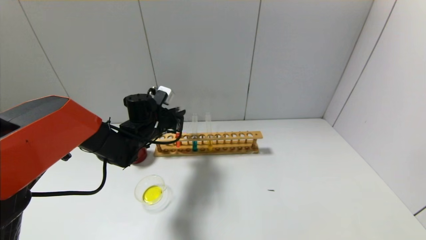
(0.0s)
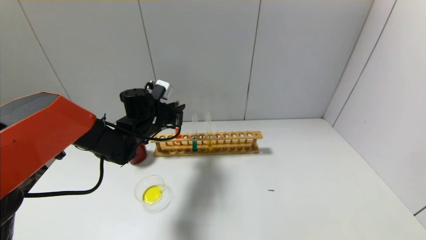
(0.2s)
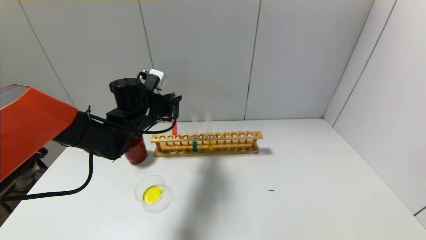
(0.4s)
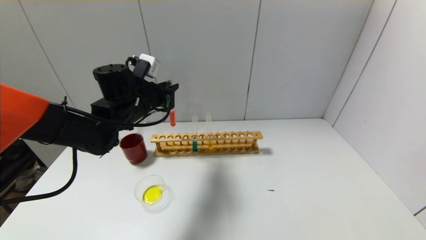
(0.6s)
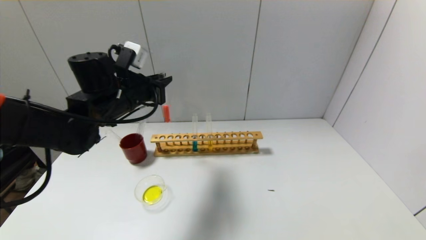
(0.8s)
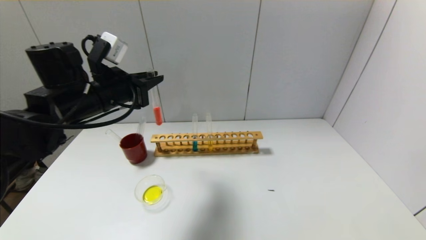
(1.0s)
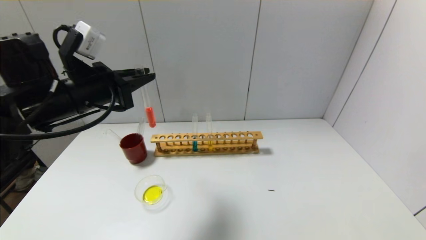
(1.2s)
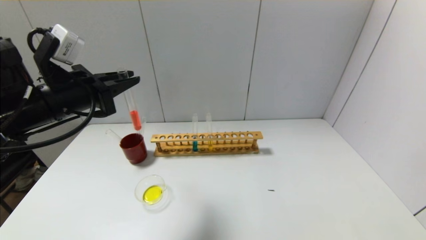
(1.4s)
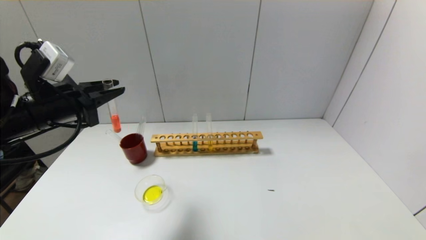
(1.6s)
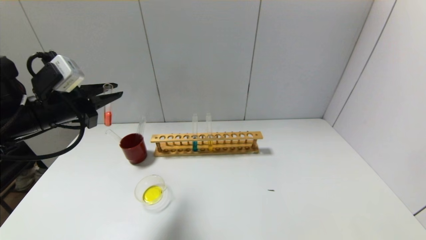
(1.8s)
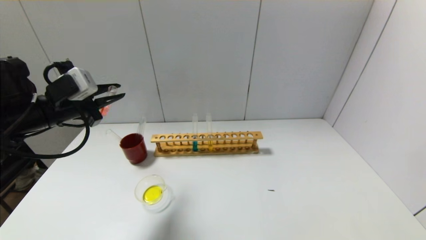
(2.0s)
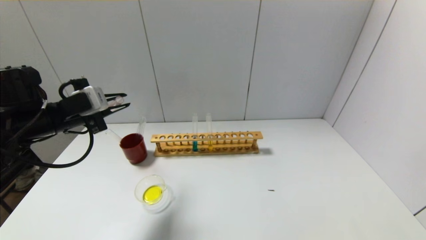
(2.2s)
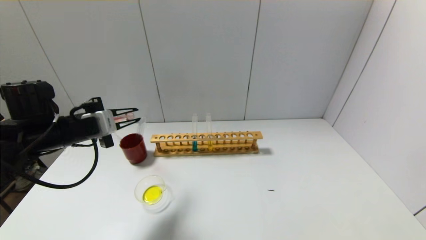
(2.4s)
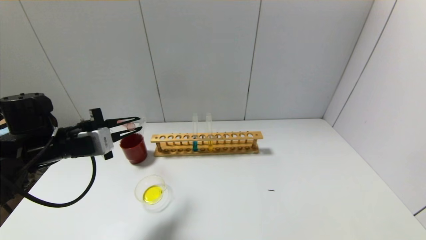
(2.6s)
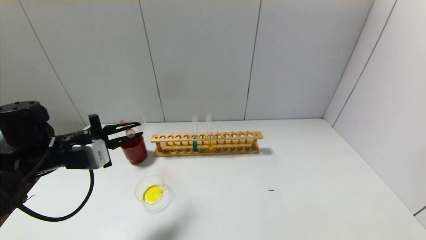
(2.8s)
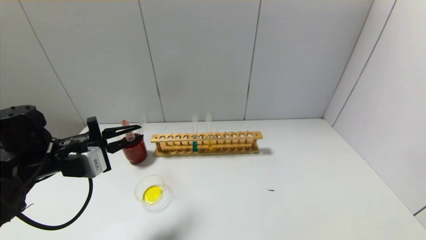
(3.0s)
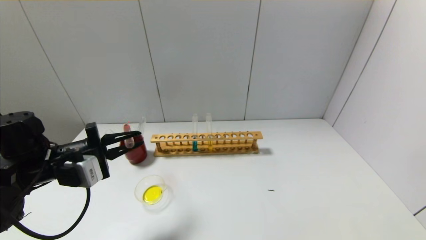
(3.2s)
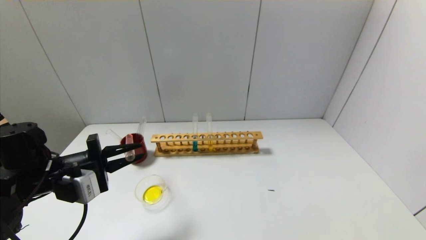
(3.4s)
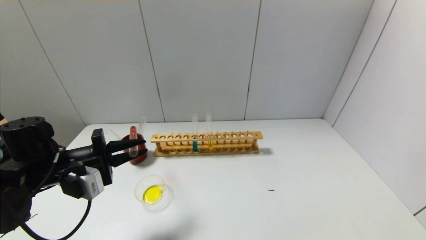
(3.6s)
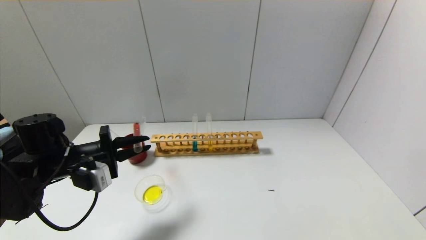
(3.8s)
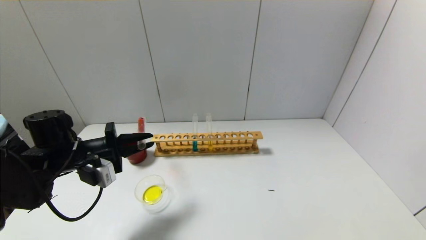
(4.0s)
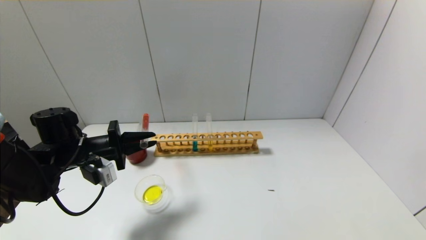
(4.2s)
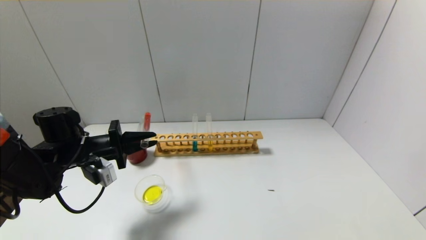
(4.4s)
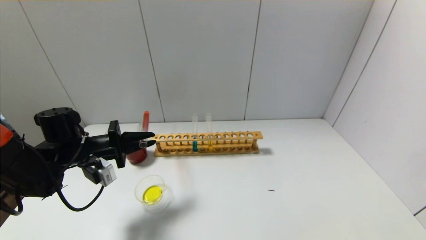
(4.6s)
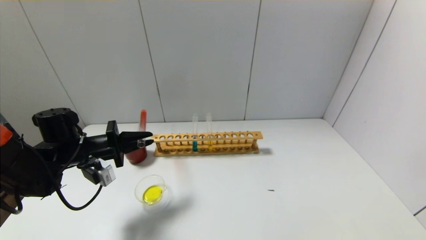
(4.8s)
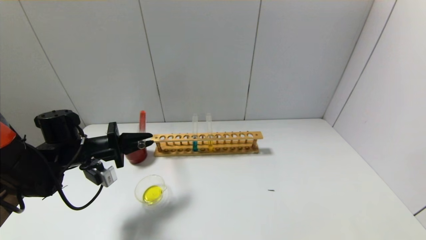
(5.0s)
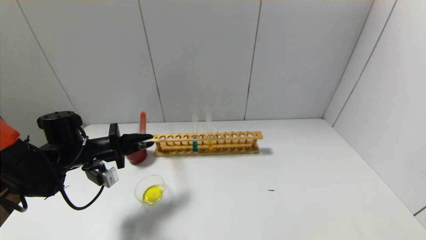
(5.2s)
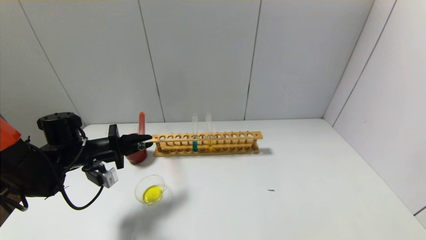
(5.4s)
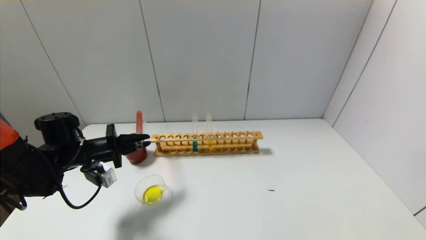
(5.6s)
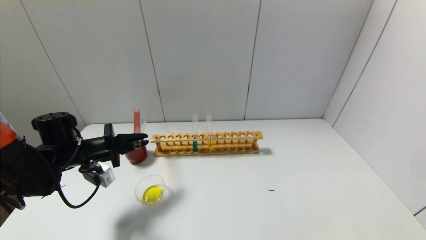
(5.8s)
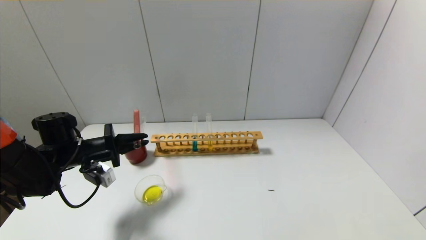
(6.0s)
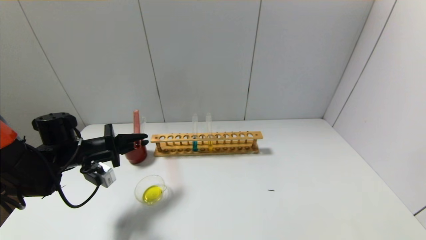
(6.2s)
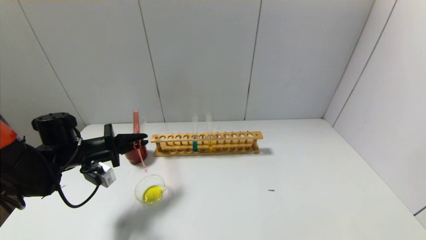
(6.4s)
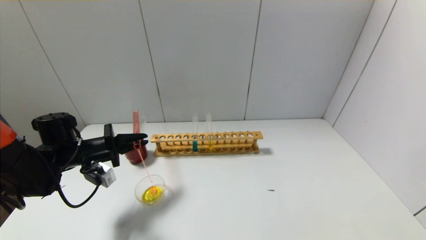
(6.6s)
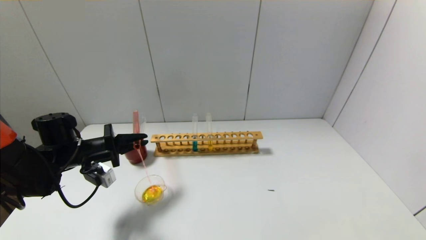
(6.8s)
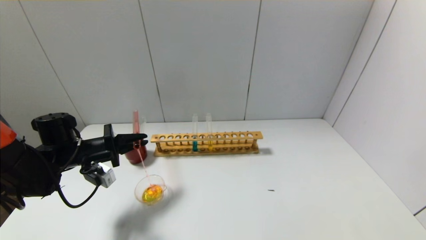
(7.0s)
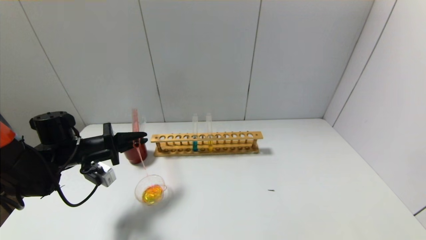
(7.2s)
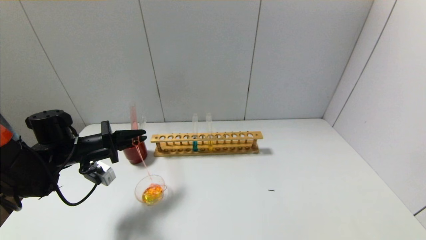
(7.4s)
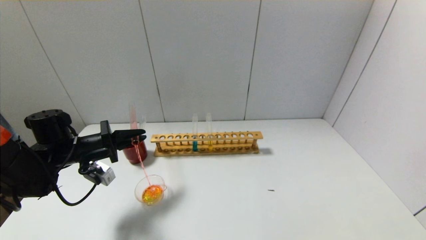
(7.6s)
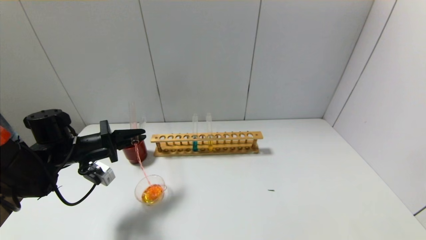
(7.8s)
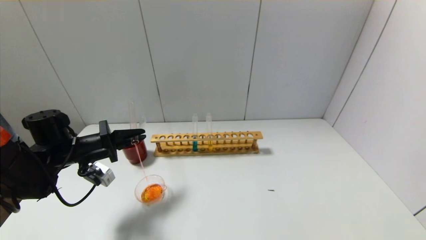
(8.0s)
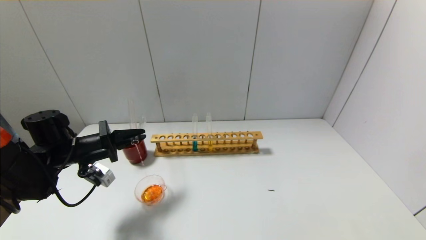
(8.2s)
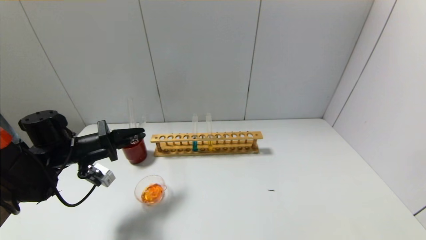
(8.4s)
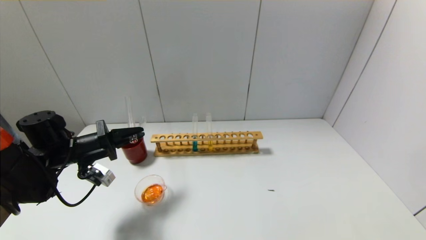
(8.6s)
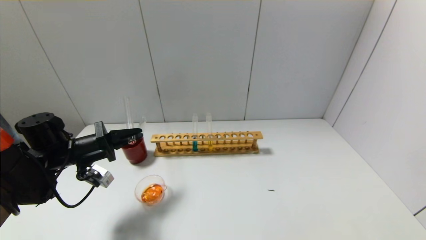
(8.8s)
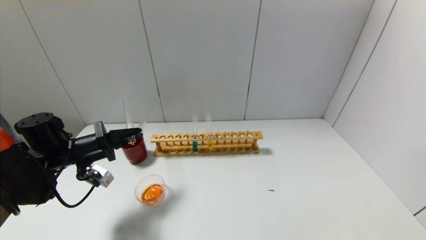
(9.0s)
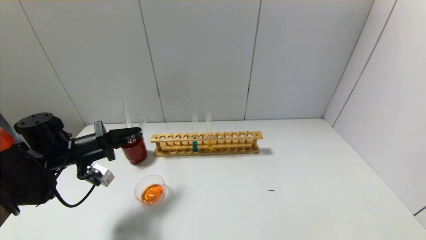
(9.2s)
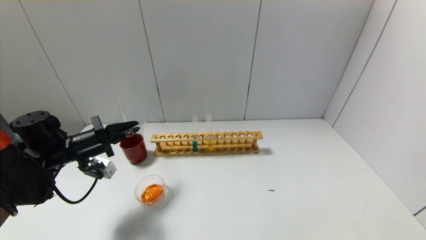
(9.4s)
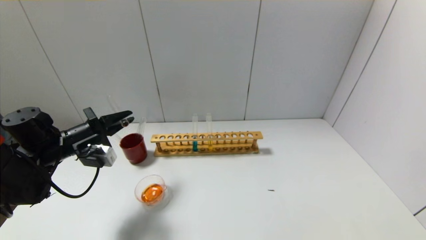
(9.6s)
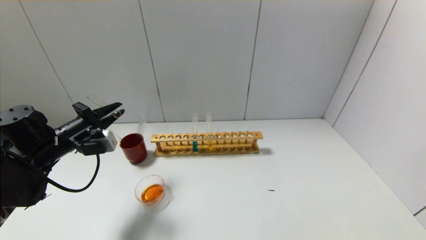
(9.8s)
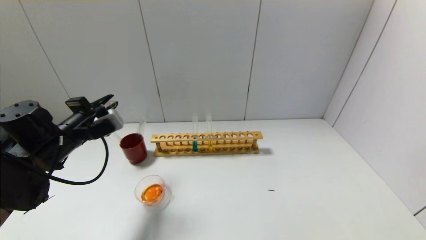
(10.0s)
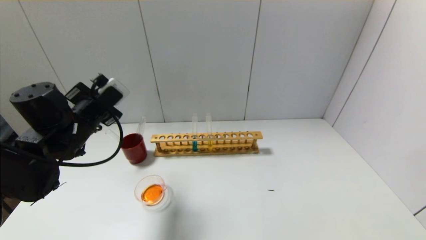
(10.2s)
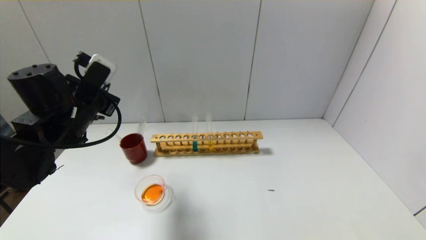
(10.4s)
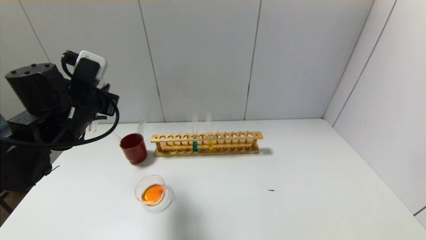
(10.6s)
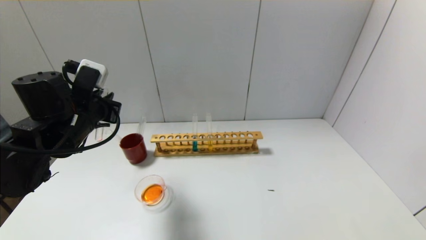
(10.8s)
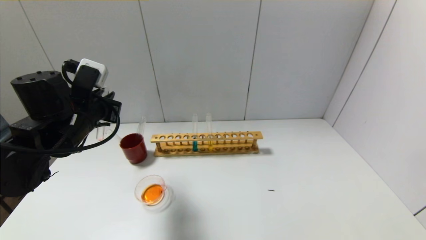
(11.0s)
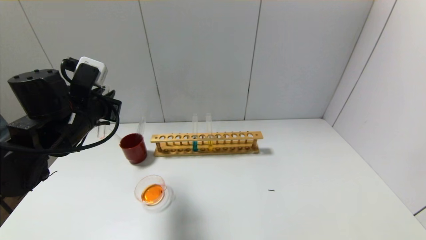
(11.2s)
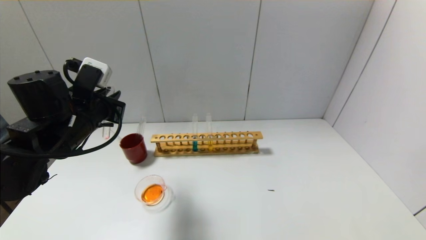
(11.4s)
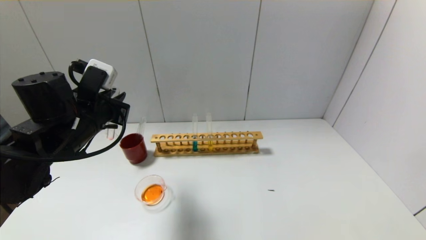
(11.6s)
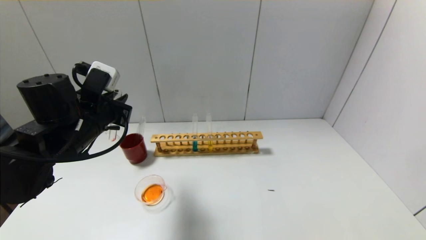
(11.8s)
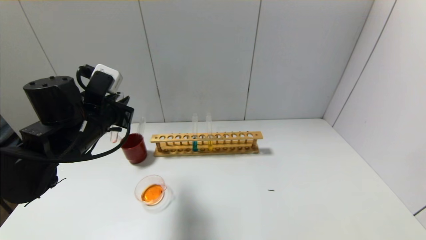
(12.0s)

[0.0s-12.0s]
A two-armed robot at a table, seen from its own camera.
Step, 0.0s to 9.4s: Pour the red reagent into the graduated cylinder with the left gripper.
0.0s to 1.6s: The left gripper shifts some 25 cm backward, upward and to the left.
1.6s to 3.0s: The left gripper shifts about 10 cm downward.
3.0s to 4.4s: The left gripper heads forward, covering roughly 5 cm.
4.4s to 7.6s: The grippers stay close to where they were, moving slightly.
7.6s to 9.0s: The grippers make only small movements.
9.0s to 10.4s: The left gripper shifts some 15 cm upward and to the right.
10.4s to 12.0s: The grippers move only a little.

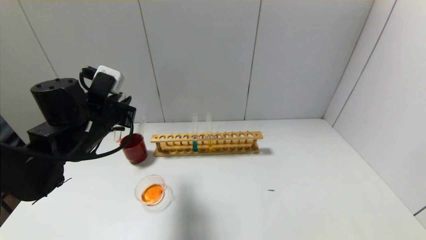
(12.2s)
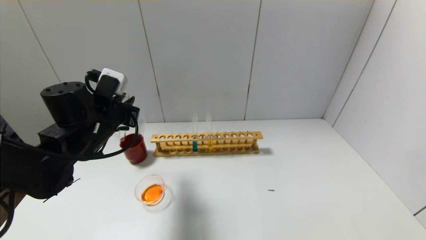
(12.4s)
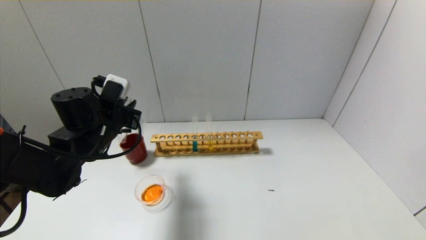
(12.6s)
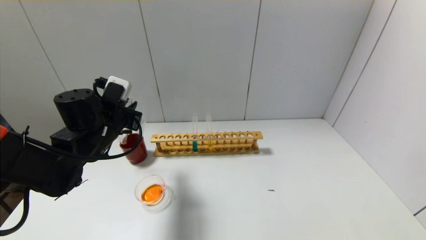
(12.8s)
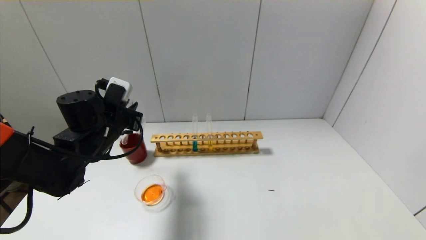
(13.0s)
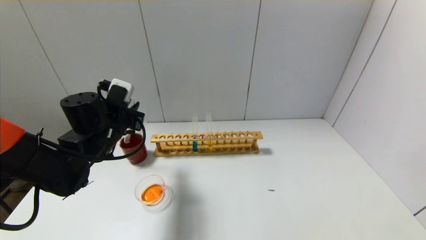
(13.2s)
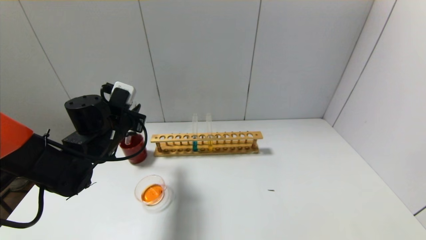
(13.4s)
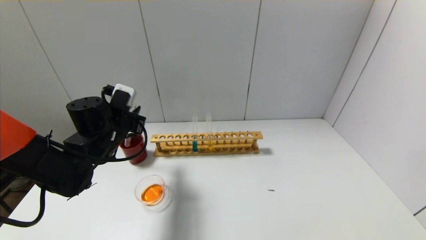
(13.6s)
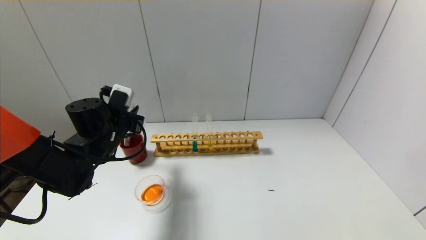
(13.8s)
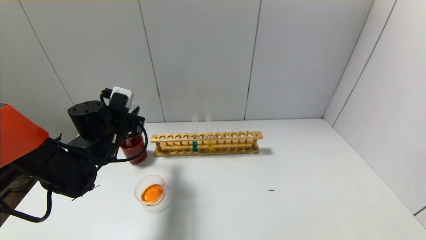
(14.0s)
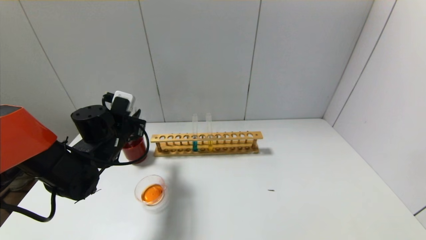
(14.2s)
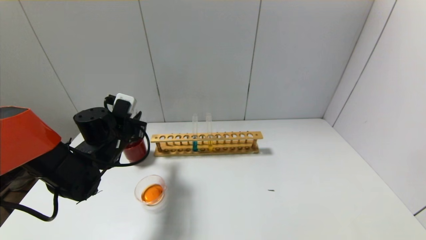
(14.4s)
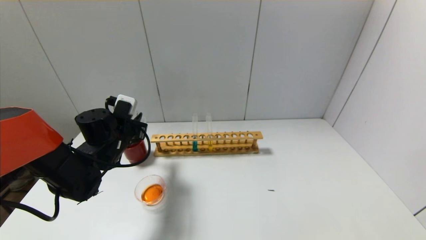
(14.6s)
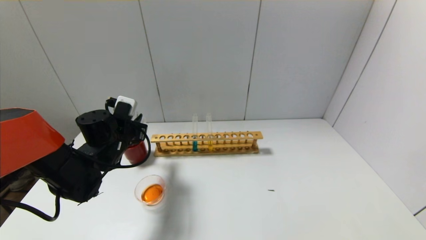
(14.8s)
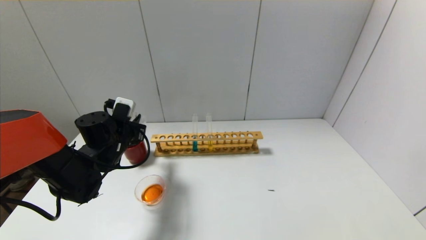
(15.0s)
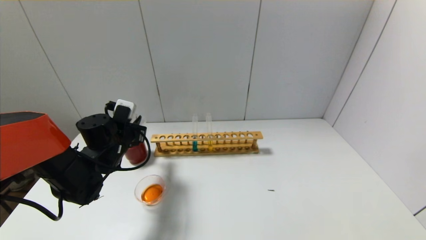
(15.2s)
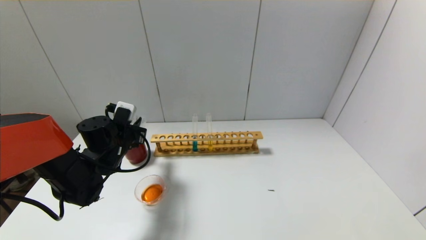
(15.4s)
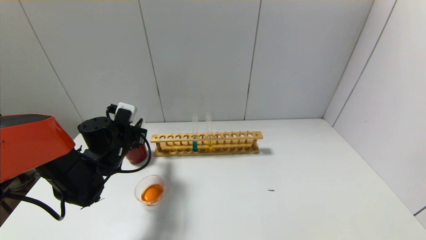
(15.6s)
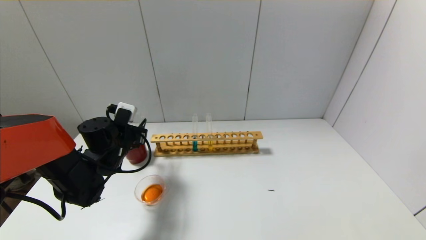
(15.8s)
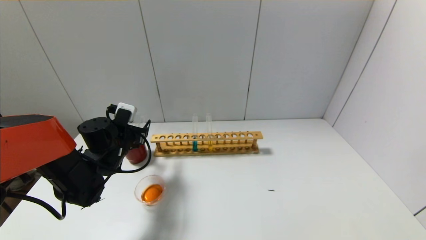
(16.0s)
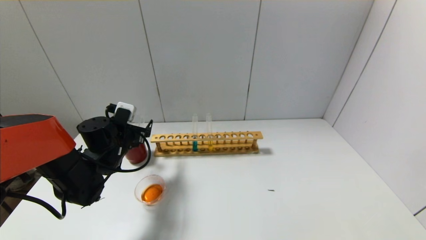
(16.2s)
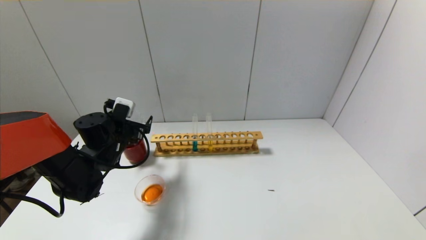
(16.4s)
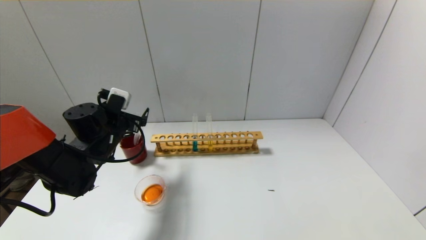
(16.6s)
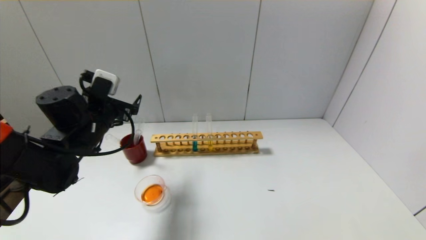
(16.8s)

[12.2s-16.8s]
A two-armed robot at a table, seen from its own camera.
Step, 12.2s to 15.6s: Place the test tube into the brown cup with the left gripper.
12.2s to 13.8s: The left gripper moves downward, some 5 cm.
13.8s to 15.2s: The grippers stay close to where they were, moving slightly.
15.2s to 16.8s: The left gripper shifts approximately 10 cm upward, and opens.
